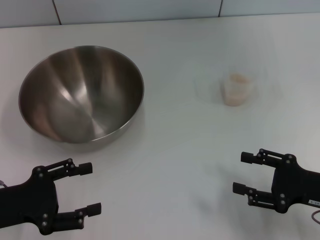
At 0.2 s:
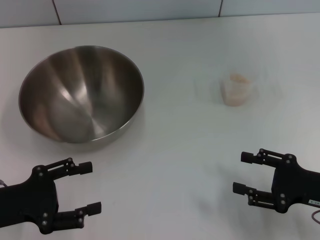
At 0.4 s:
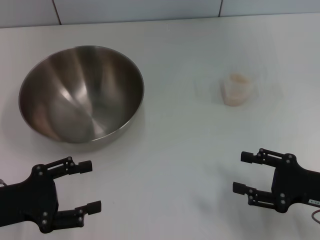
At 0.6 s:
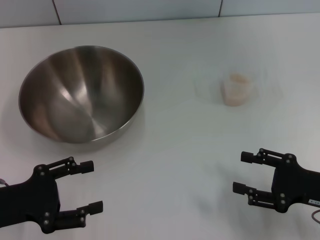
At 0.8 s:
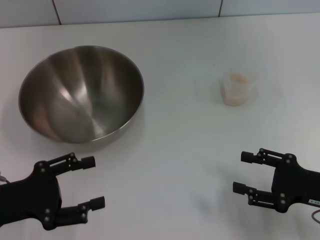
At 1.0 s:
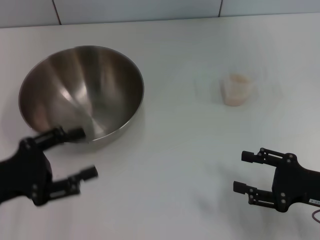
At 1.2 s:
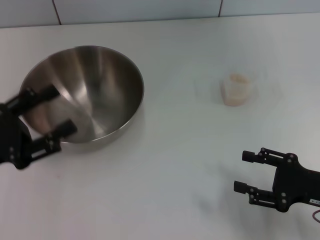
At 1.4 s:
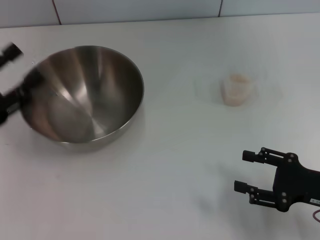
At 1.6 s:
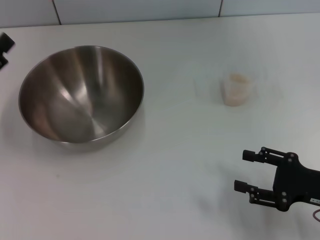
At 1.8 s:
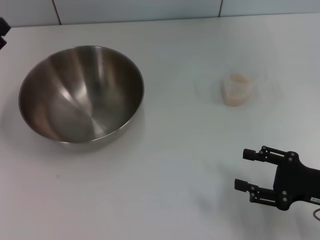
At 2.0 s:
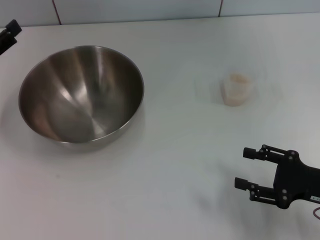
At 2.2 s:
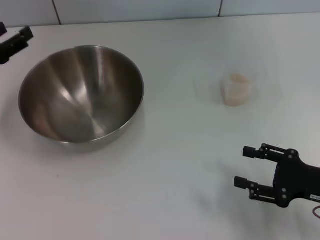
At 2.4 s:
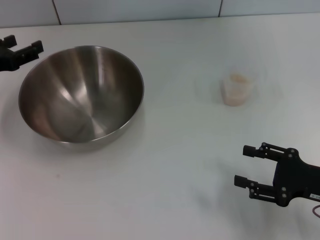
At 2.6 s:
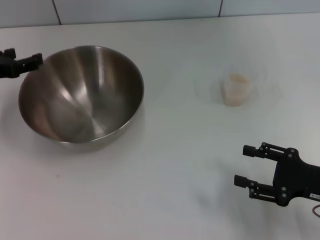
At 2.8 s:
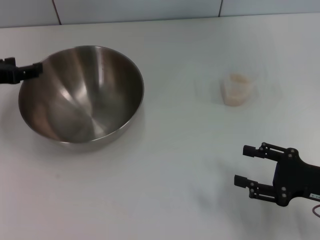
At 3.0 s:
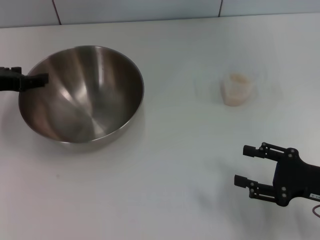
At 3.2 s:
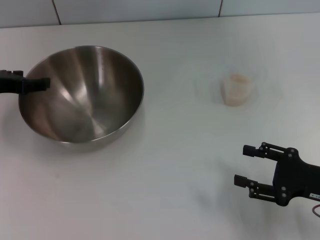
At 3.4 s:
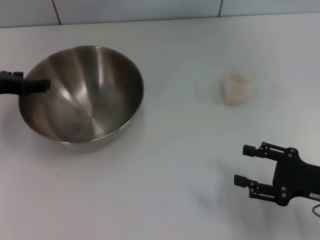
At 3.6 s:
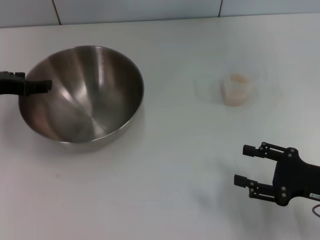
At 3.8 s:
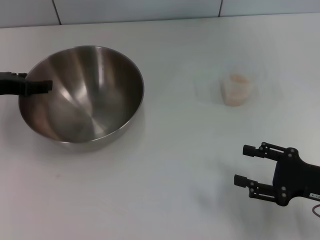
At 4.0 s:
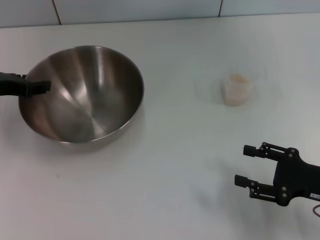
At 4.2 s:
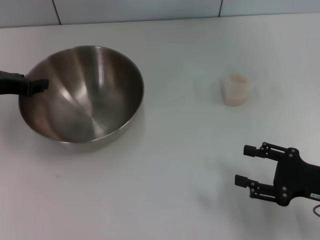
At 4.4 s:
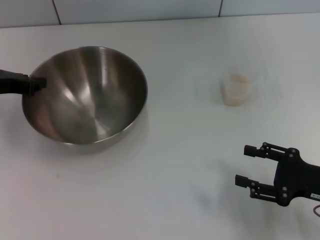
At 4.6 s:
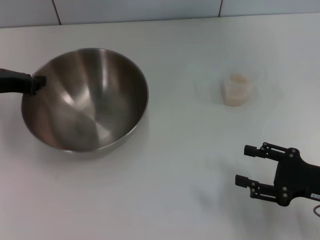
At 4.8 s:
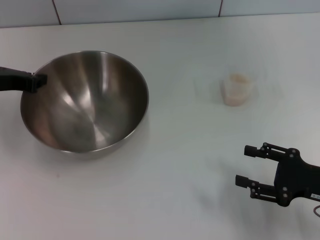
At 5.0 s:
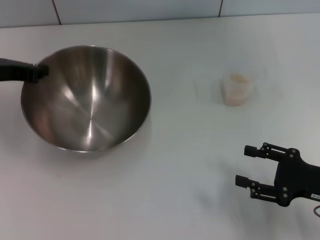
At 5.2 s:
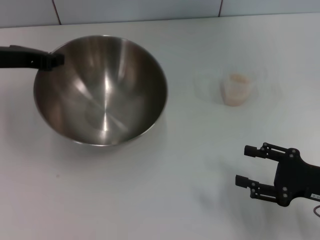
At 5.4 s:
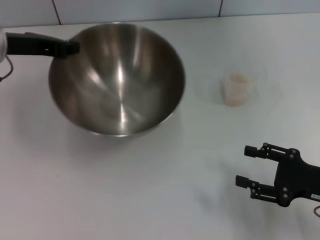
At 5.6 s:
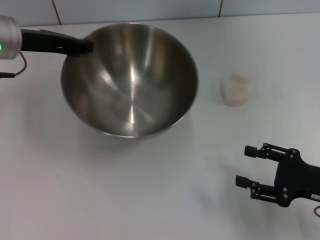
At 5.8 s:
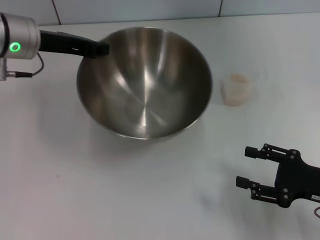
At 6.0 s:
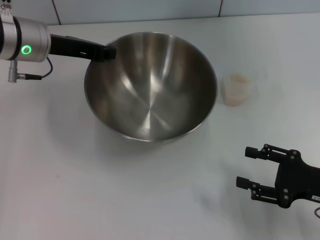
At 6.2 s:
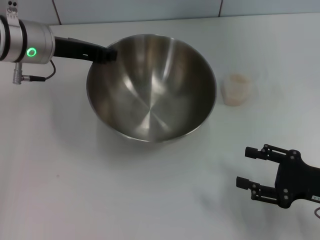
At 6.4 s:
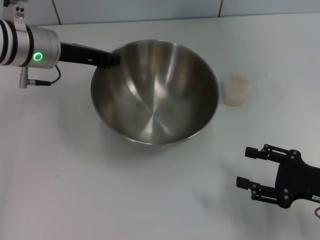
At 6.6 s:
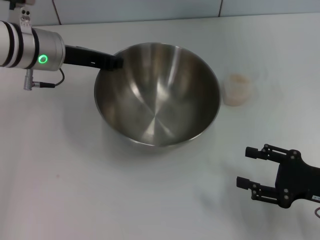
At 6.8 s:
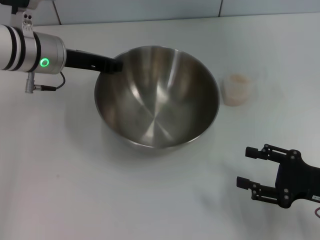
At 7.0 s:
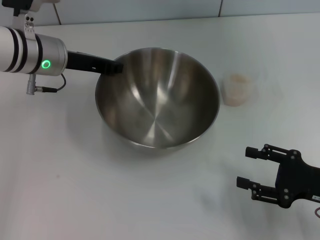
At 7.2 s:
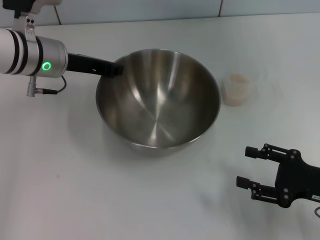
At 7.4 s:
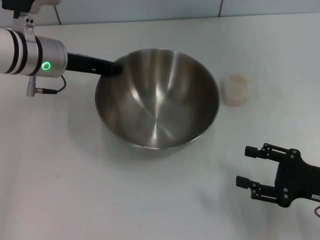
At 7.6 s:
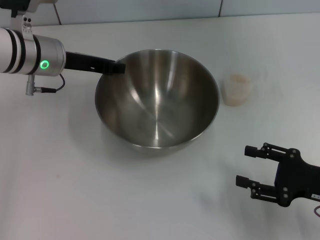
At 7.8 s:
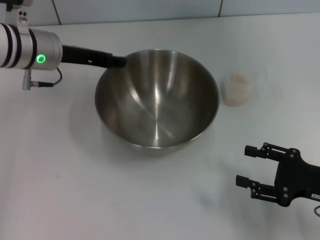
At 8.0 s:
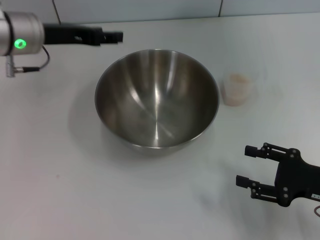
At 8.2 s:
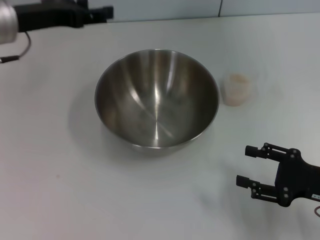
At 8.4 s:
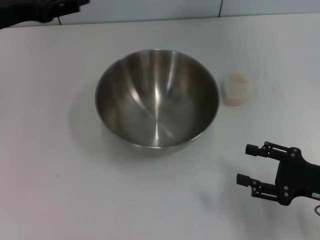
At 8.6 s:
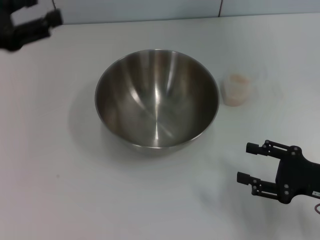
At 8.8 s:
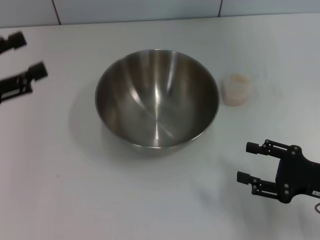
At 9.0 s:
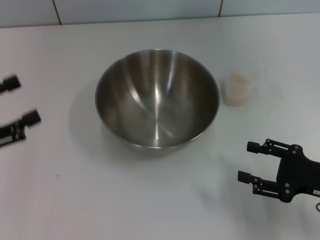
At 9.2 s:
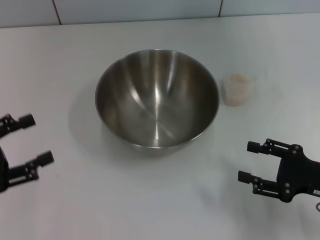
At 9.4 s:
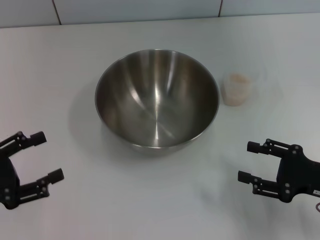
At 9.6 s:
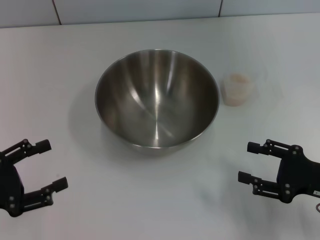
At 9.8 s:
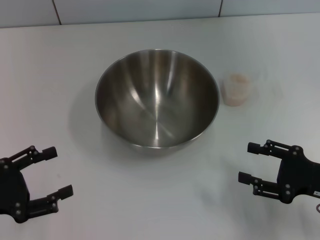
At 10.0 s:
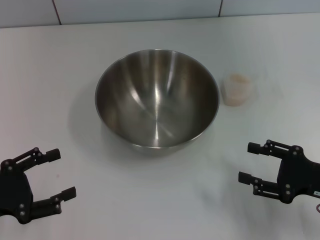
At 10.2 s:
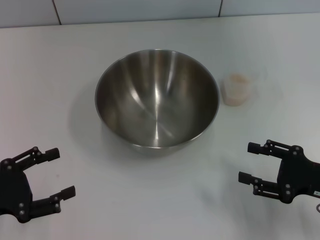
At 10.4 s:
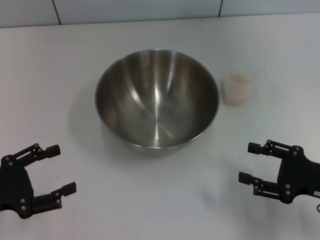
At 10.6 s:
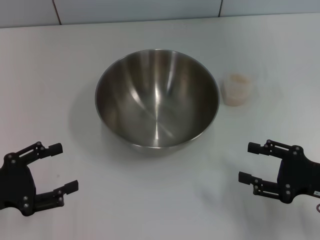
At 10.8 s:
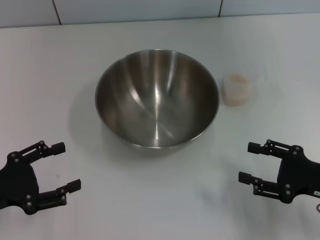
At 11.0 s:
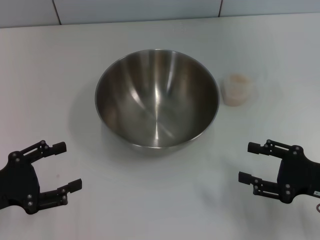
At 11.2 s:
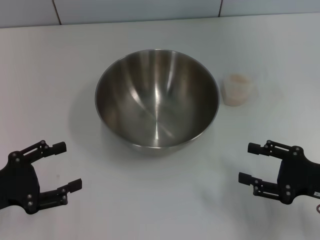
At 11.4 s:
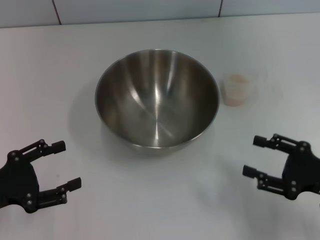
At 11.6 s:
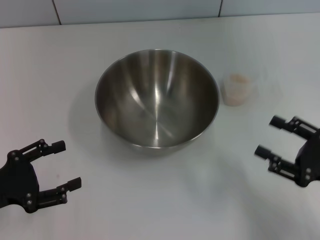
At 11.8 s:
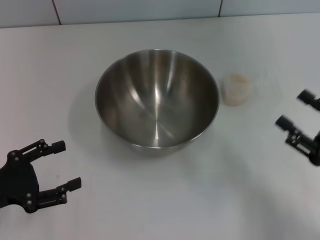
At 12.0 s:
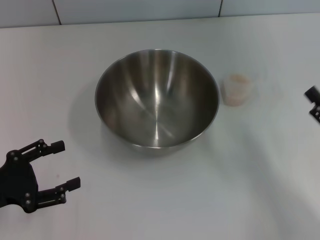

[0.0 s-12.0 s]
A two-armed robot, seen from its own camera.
Task of the whole recording: Place the bowl in the middle of the table with one hand and pour the rice from the grain cup into it with the other hand.
Step, 0.0 to 5.2 s: Pick up the bowl with the left gripper.
Step, 5.4 to 8.0 s: Place the bowl in the center of view with the left gripper.
0.0 to 1.6 s: The left gripper goes about 5 cm forward.
1.6 to 3.0 s: The left gripper is displaced forward by some 10 cm.
3.0 to 4.4 s: The left gripper closes up.
4.4 to 6.0 s: The left gripper goes roughly 10 cm to the right.
6.0 to 7.6 s: There are only small adjustments of the grippers.
7.6 to 9.0 s: The left gripper travels backward and to the left by some 25 cm, and opens up.
9.0 to 10.4 s: The left gripper goes roughly 5 cm downward.

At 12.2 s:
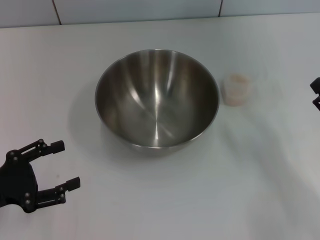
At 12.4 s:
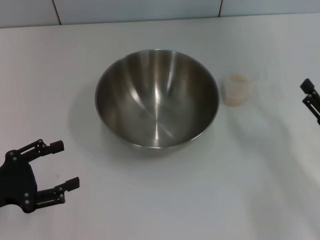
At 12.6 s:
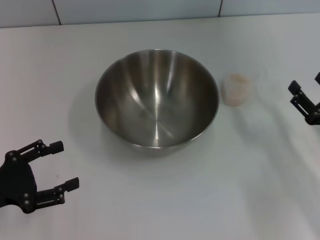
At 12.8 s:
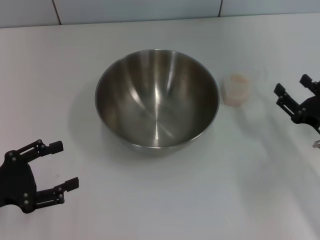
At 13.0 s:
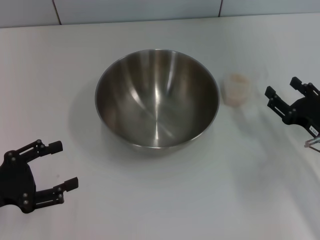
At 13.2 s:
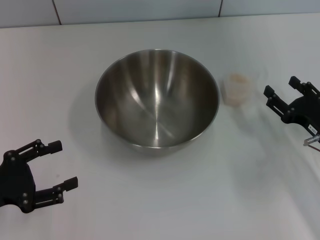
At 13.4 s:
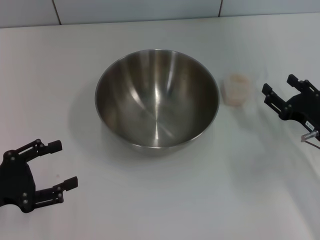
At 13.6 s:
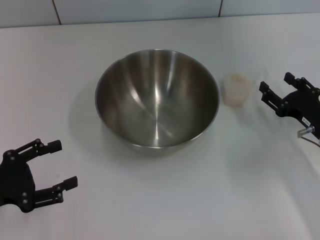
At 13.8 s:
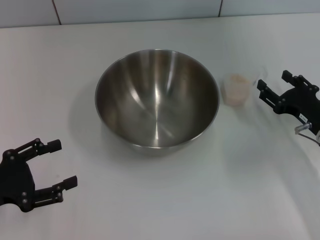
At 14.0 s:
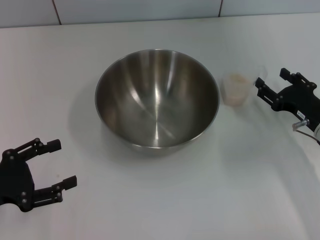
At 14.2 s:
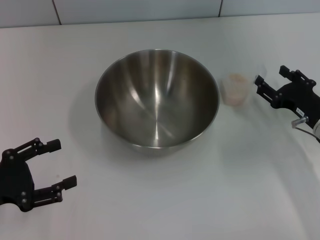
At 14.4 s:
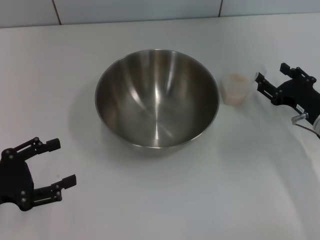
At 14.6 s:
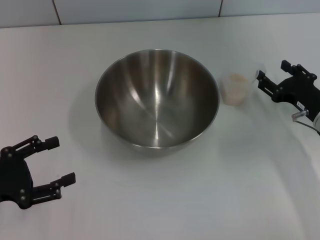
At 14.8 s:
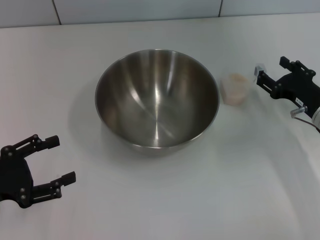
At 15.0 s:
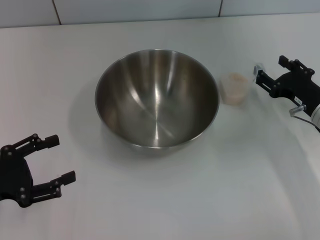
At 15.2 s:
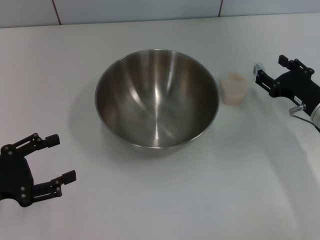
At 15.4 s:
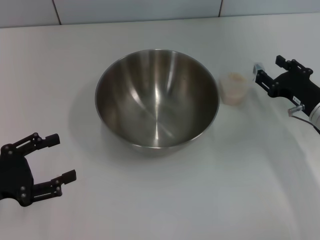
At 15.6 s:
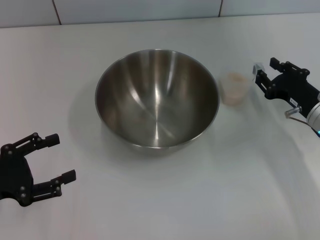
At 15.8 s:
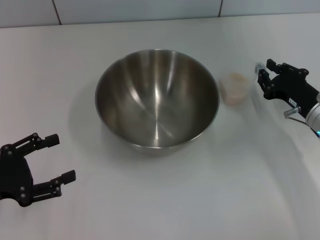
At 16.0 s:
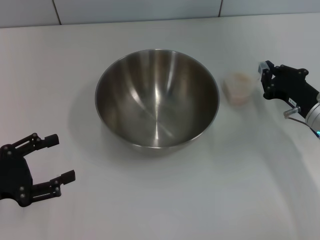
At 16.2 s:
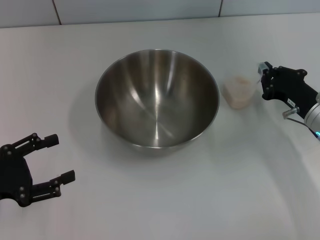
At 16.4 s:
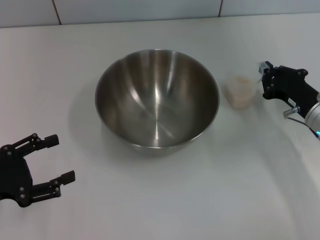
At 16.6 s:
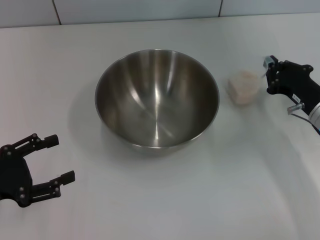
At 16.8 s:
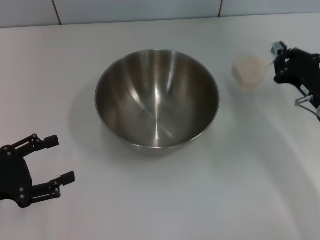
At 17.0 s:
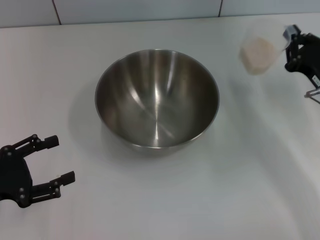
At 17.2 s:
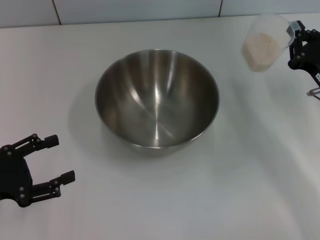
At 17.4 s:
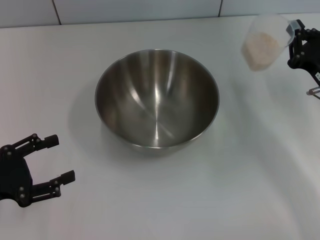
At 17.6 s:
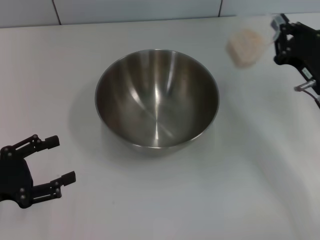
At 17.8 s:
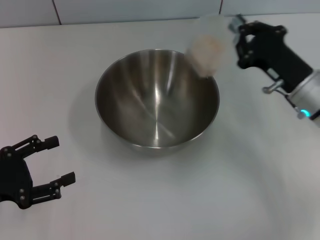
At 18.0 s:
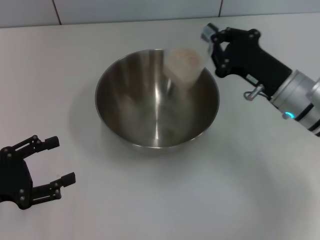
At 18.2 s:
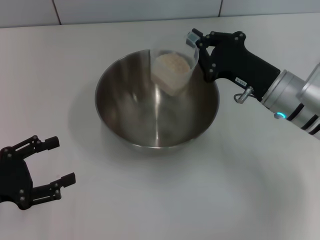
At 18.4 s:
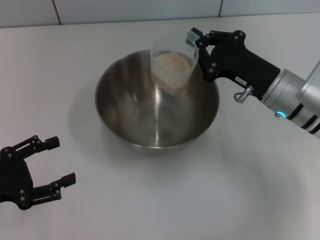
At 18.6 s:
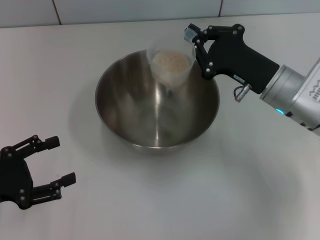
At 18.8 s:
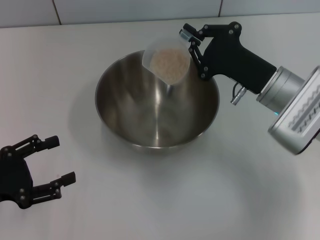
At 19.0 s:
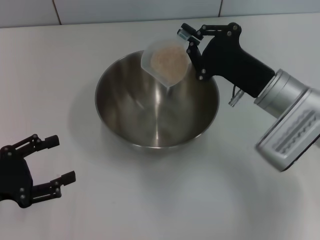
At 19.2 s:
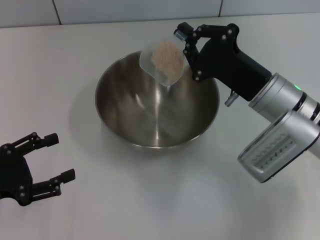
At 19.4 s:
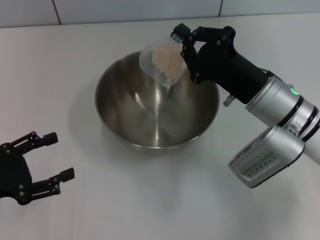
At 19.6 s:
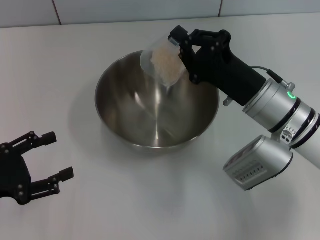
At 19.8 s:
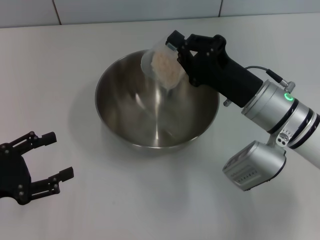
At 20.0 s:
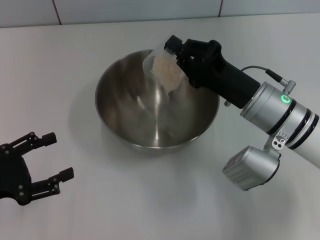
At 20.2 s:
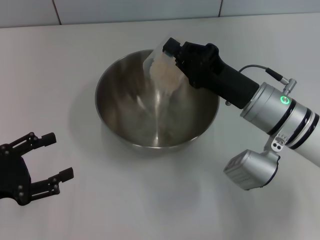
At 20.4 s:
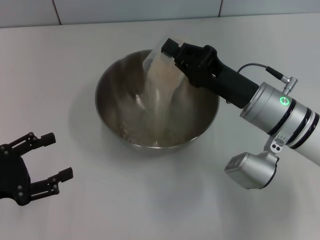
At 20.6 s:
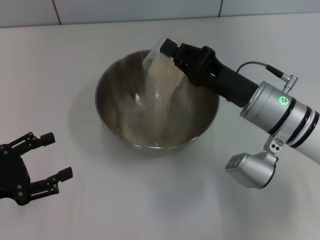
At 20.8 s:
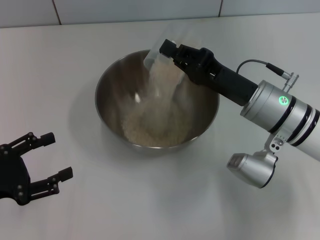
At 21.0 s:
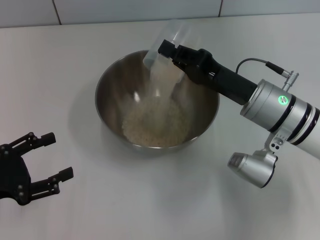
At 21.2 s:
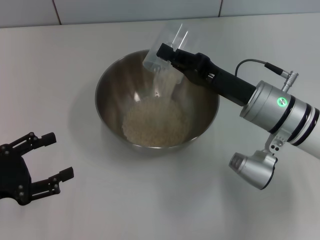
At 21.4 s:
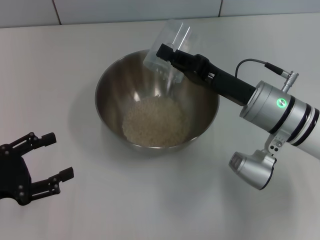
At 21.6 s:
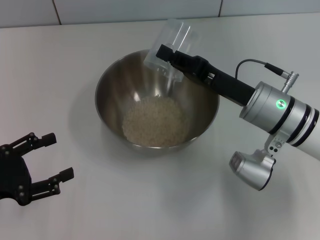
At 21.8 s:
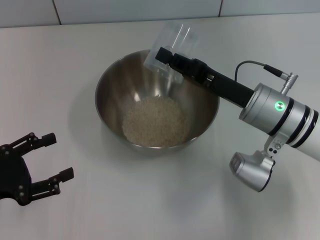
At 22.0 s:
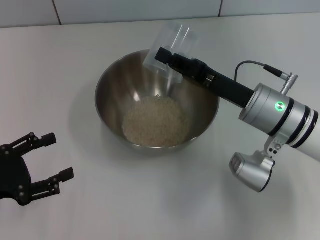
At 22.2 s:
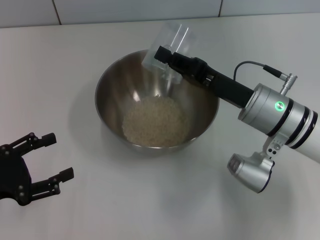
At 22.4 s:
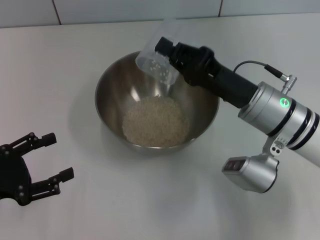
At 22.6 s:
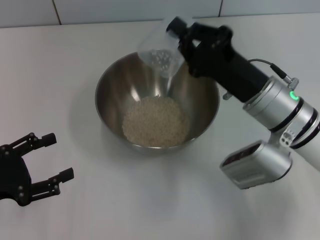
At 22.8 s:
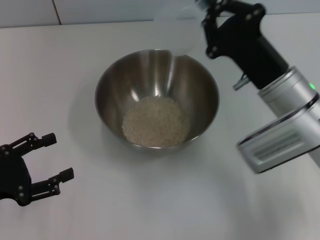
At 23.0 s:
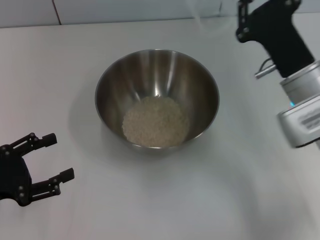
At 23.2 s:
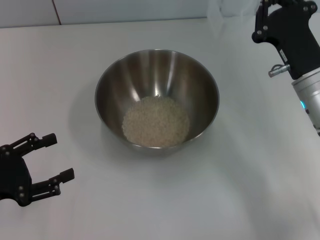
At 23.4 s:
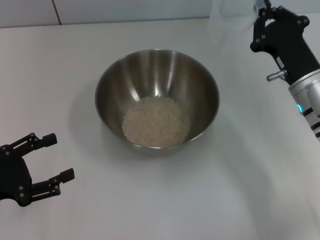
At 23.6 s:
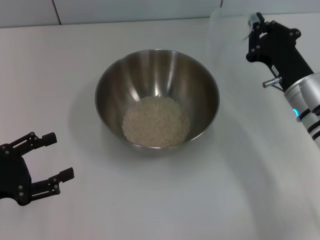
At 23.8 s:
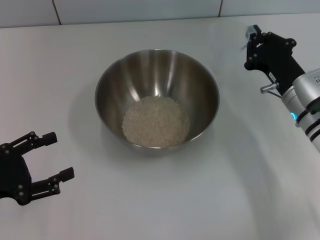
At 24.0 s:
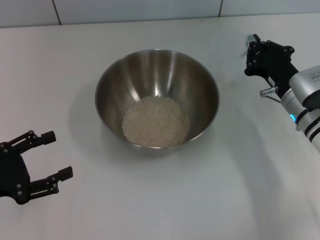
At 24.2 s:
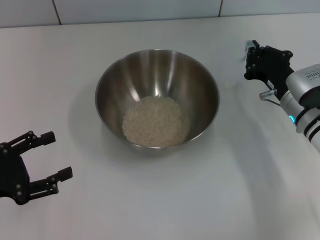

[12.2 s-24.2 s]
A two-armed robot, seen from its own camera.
Task of the whole recording: Place the bowl in the middle of the table with one hand and pour the rice from the grain cup into it with the other hand.
Step, 12.2 to 17.2 s: Pick up the cup with rice in it with the right gripper.
Step, 17.4 to 22.2 s: Pour the rice from the cup into the bowl with the right gripper.
12.2 to 13.8 s: The right gripper is displaced forward by some 10 cm.
13.8 to 15.2 s: The grippers stay close to where they were, moving slightly.
15.2 to 16.6 s: The right gripper closes its fingers.
16.6 to 18.2 s: The right gripper goes some 10 cm to the left and upward.
22.6 to 24.2 s: The right gripper is displaced to the right and downward by some 10 cm.
